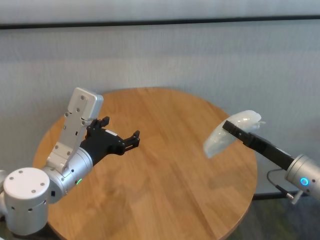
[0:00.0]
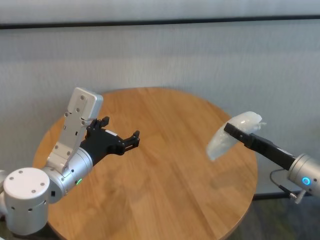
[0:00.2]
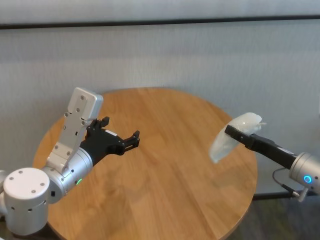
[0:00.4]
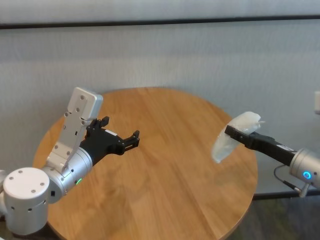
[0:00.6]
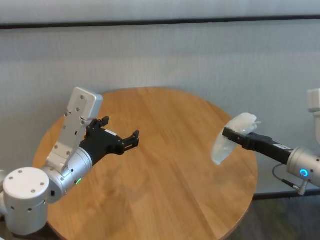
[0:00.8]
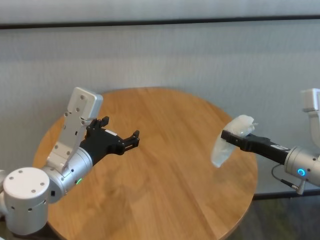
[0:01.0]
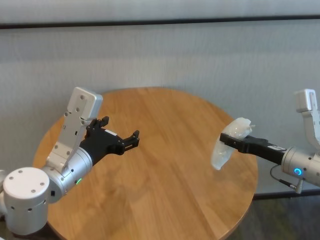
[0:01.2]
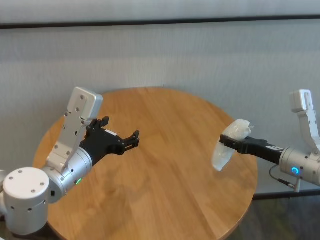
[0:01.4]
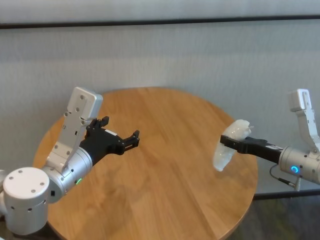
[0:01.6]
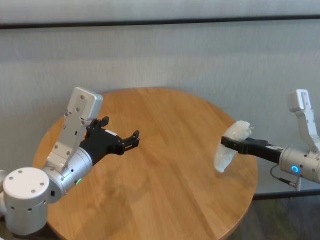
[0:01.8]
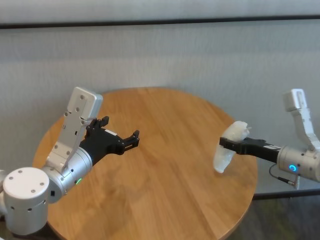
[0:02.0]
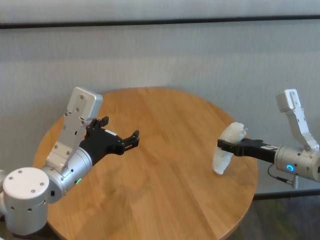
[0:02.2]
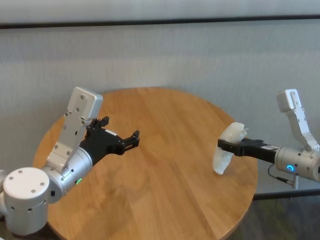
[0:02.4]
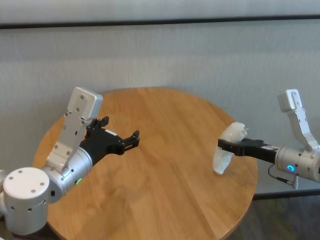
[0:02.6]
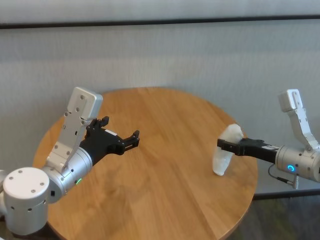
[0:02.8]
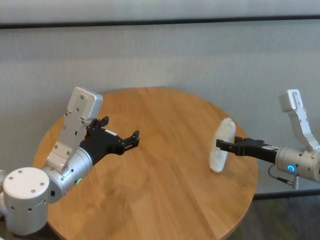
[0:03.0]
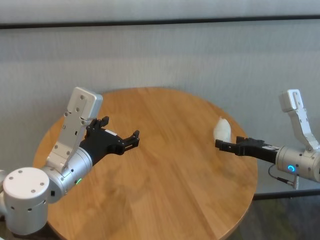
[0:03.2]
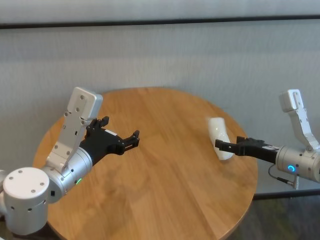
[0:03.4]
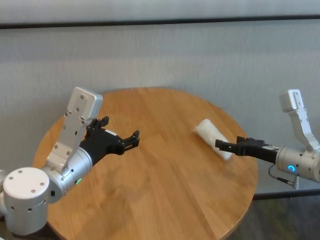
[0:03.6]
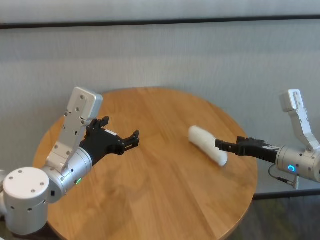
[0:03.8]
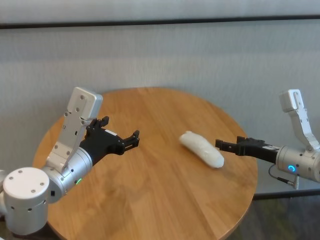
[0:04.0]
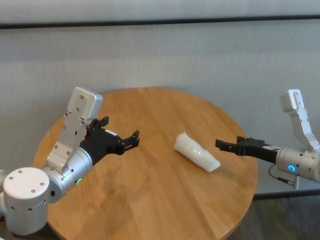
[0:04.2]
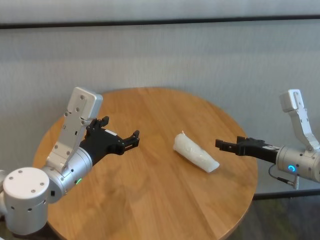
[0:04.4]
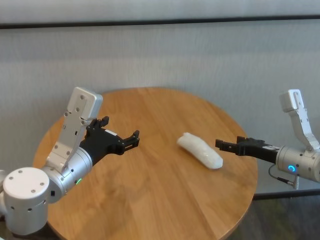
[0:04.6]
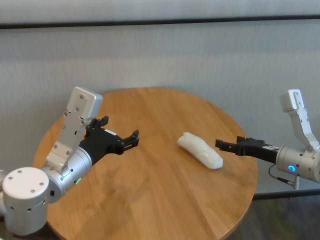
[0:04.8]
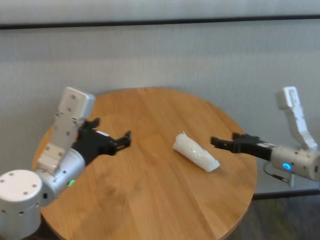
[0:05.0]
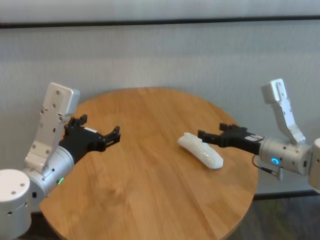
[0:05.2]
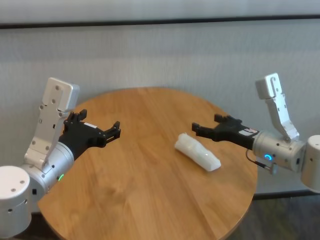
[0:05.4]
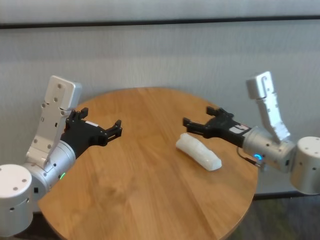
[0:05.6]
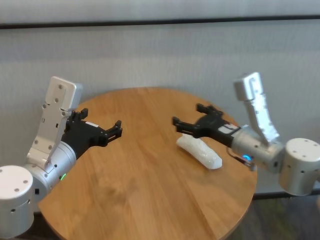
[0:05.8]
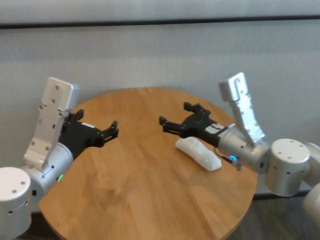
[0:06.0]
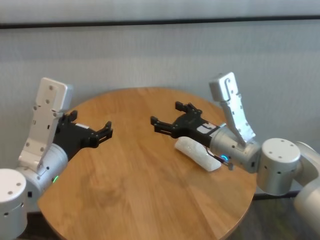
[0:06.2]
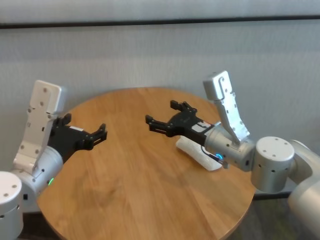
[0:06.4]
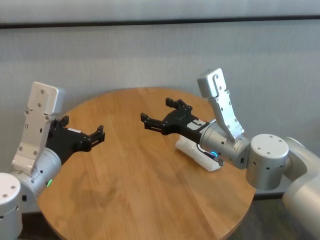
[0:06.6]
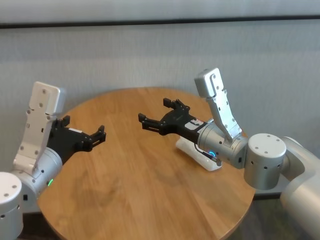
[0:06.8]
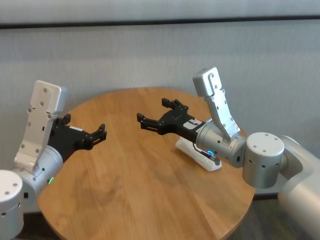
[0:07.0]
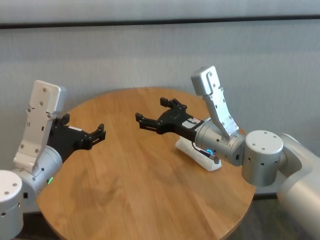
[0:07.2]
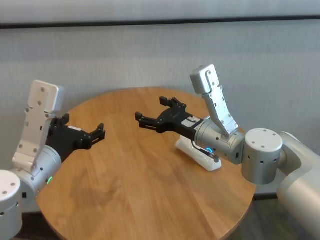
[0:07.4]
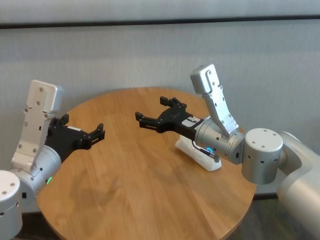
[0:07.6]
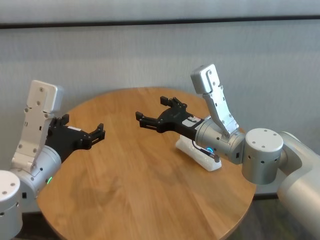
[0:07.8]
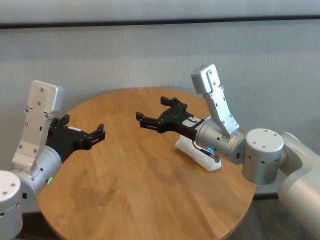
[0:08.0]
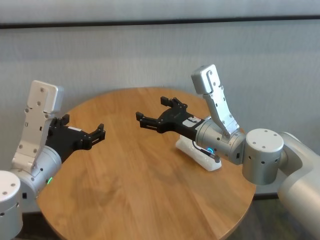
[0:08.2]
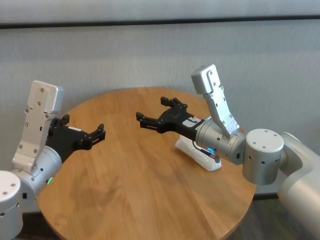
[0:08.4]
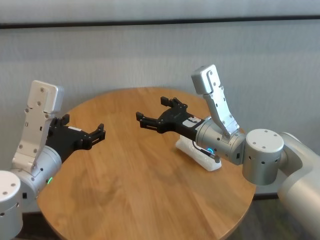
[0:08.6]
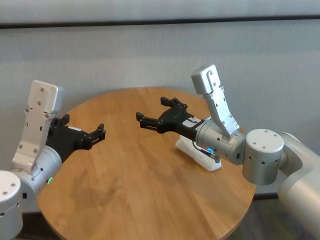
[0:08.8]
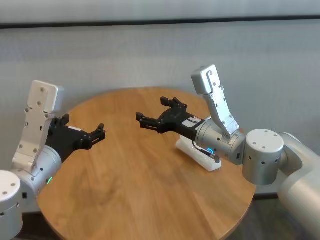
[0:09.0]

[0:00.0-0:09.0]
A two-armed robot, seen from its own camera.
Task of the whole recording: One hand took the sandbag from the other hand and placed it on the table.
Step, 0:00.0 to 0:03.6: Place the paper ball on the table with right gripper.
